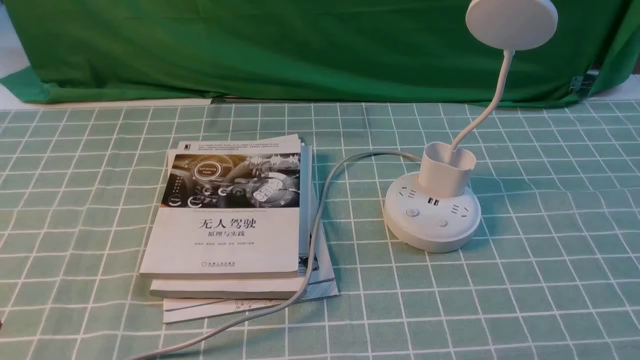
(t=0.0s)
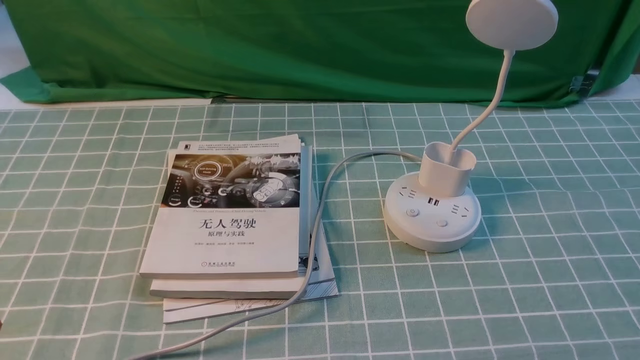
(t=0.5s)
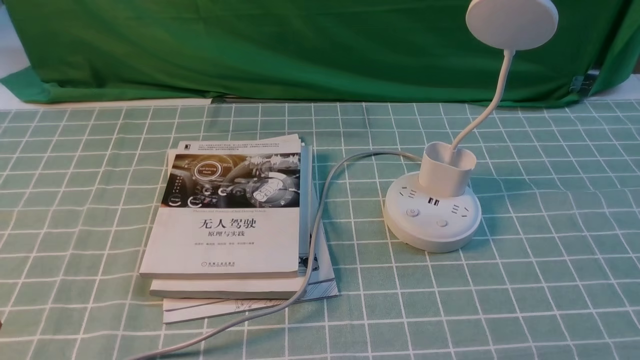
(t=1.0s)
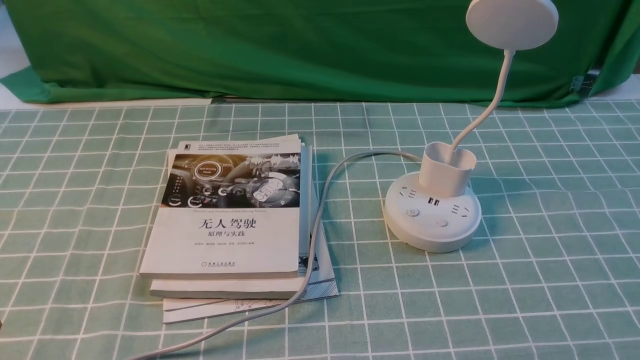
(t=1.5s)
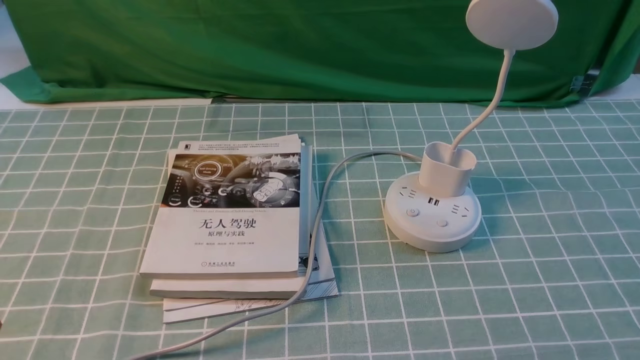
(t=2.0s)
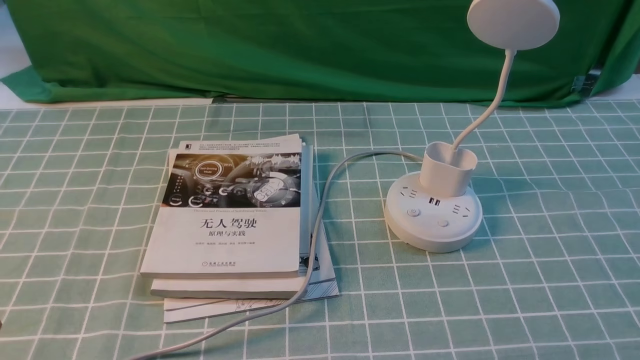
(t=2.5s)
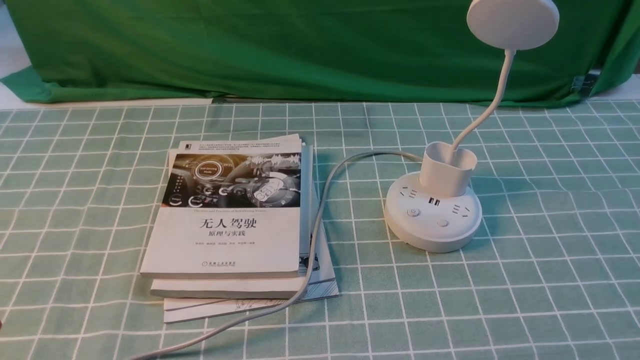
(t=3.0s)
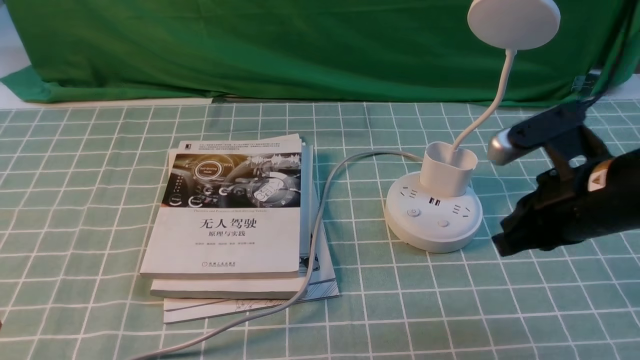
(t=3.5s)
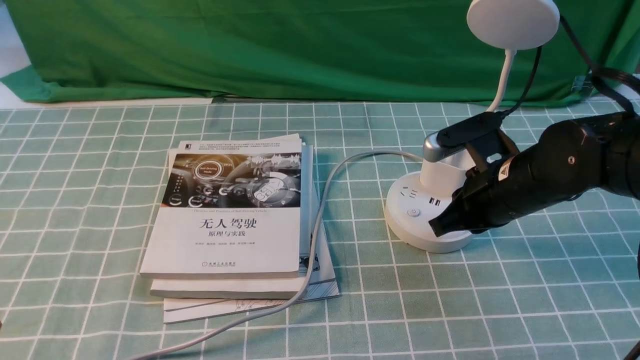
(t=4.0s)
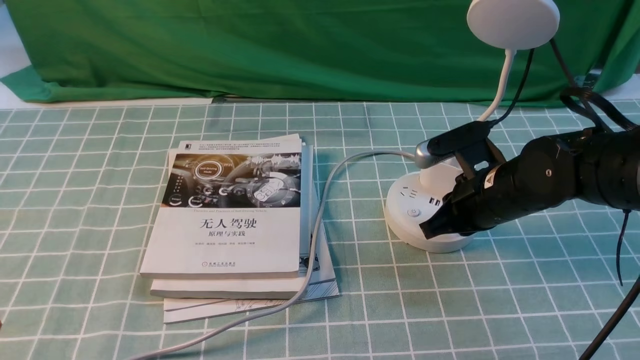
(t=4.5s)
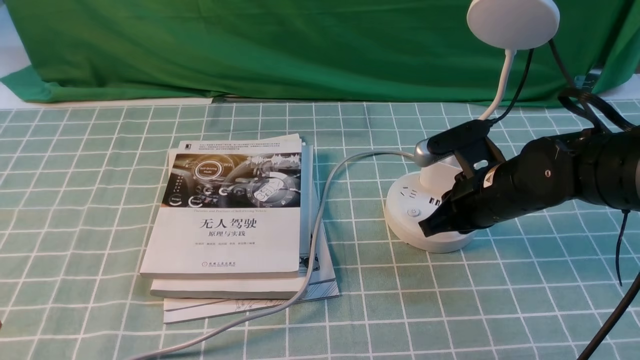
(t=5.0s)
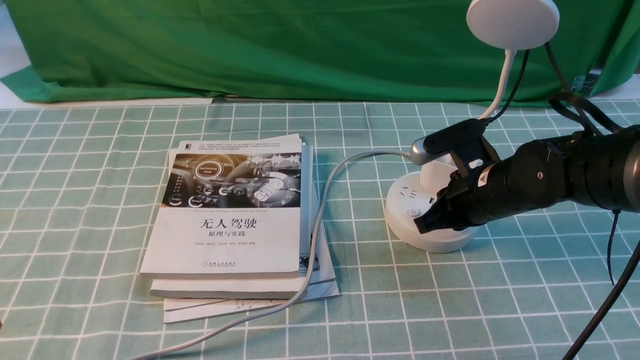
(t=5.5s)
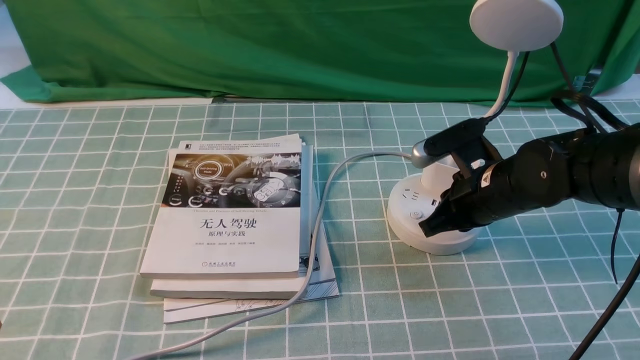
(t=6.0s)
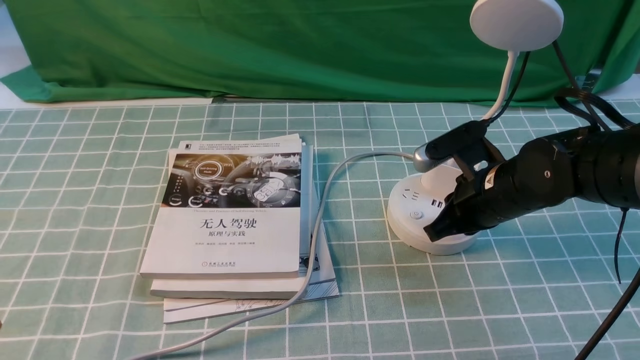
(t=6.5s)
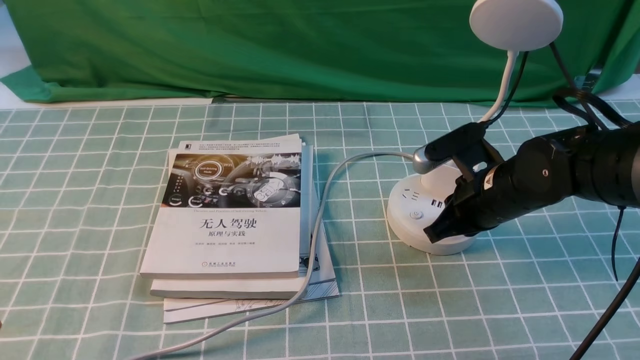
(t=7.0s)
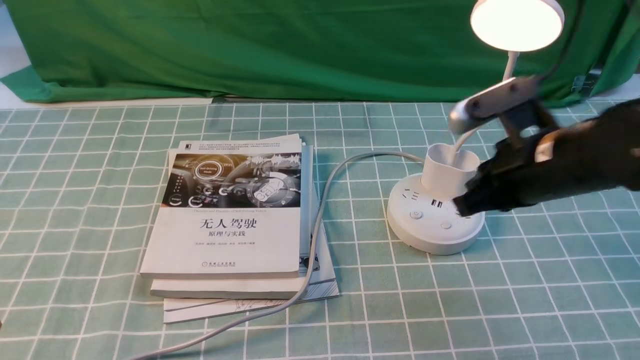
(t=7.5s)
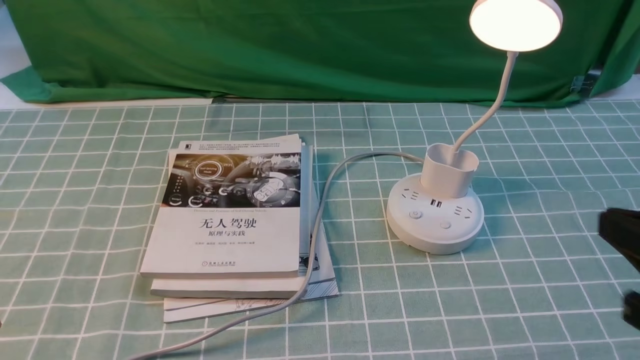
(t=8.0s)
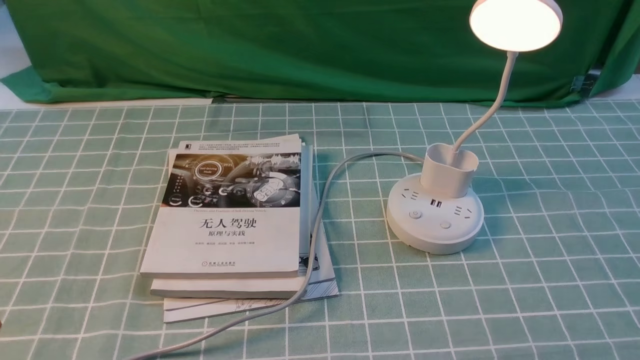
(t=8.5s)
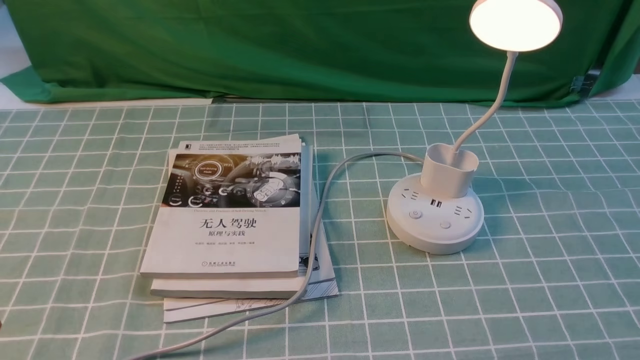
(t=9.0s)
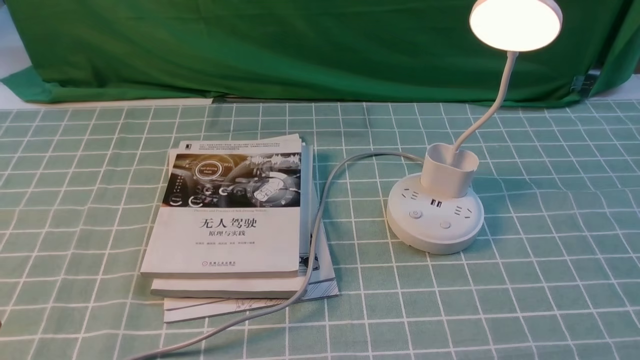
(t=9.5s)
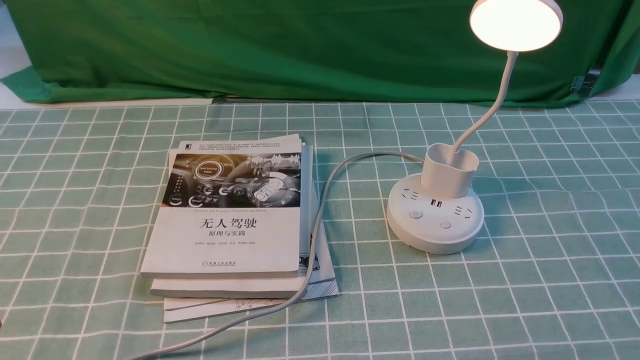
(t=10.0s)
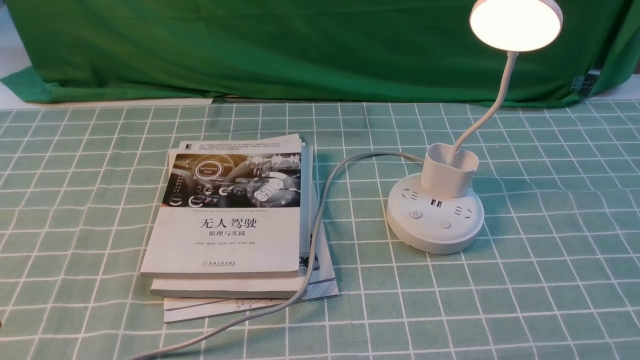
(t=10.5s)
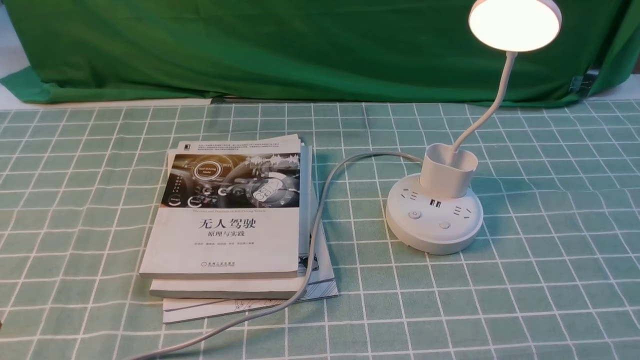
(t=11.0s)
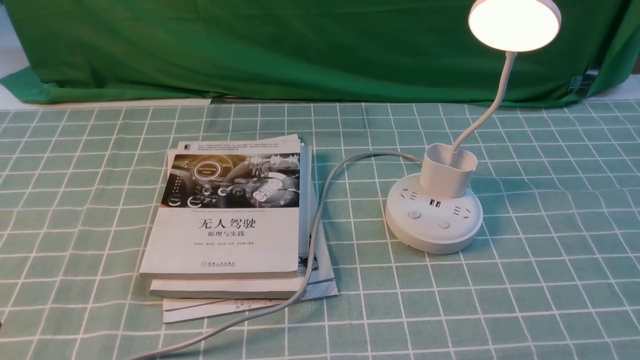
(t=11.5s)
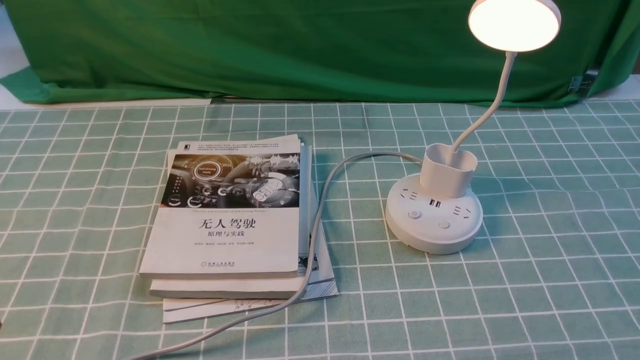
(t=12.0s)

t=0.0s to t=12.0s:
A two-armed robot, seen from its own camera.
Step, t=0.0s to t=7.5s: use the right arm to press the button switch on the lamp holder.
t=2.0s to t=4.0s: The right gripper moves forward and to the left, some 30 cm, and closes.
t=4.0s to t=6.0s: The right gripper changes place by about 5 cm.
t=6.0s to t=8.0s: The right gripper moves backward, upward and to the right, roughly 25 cm.
t=8.0s to t=10.0s: The right gripper is displaced downward, backward and to the right by approximately 15 cm, and opens.
t=10.0s to t=12.0s: Both grippers stay about where they are.

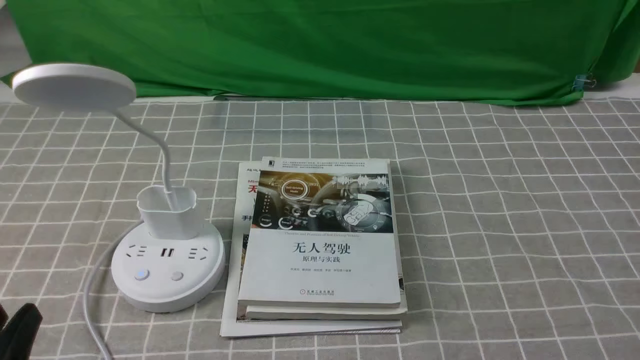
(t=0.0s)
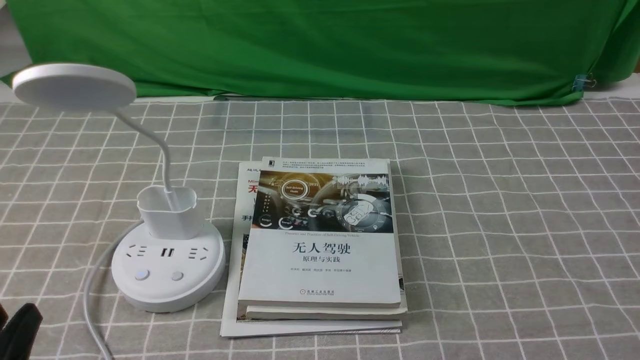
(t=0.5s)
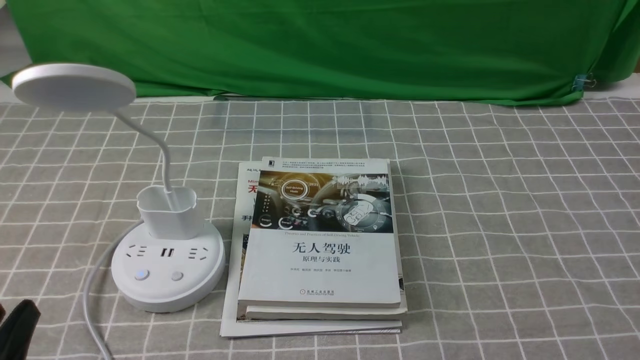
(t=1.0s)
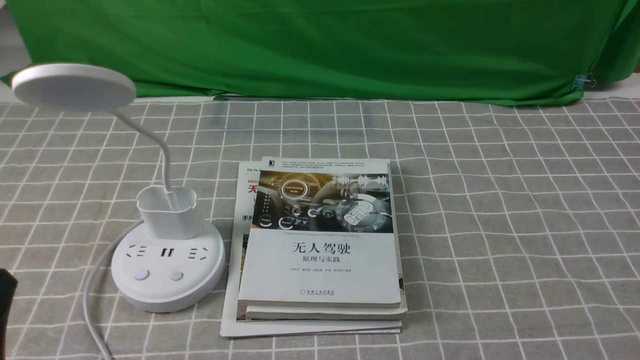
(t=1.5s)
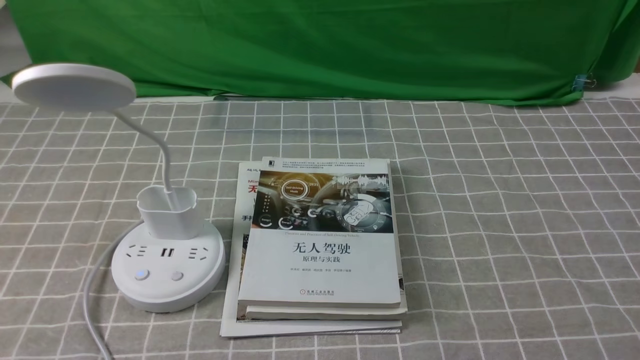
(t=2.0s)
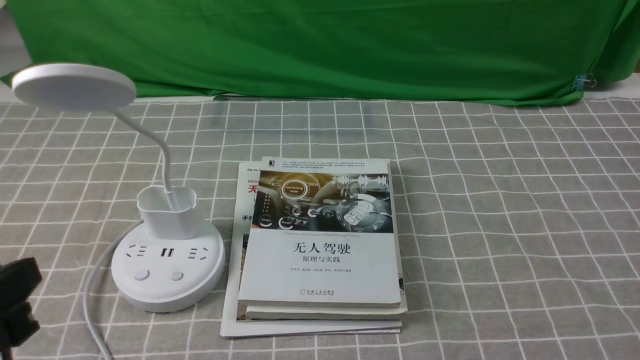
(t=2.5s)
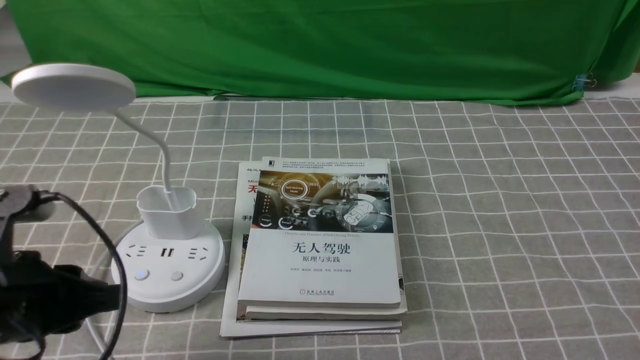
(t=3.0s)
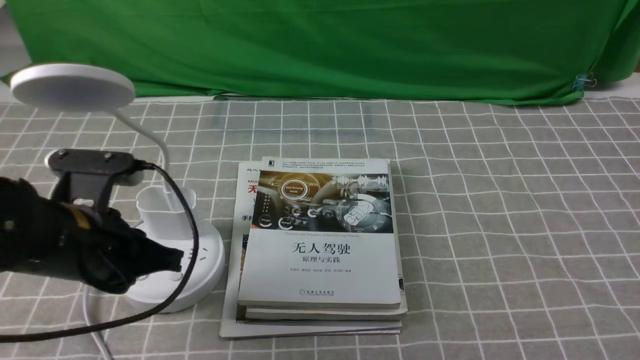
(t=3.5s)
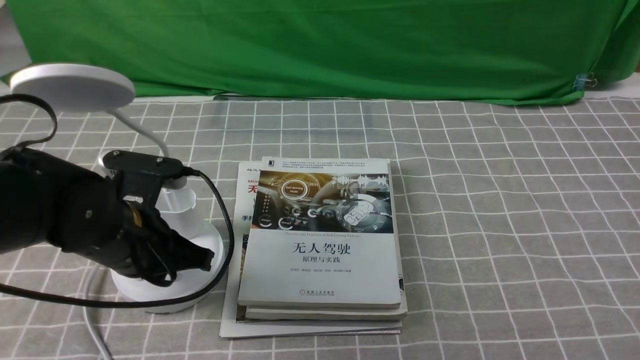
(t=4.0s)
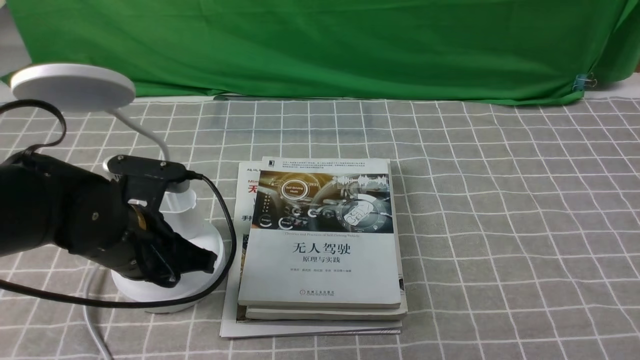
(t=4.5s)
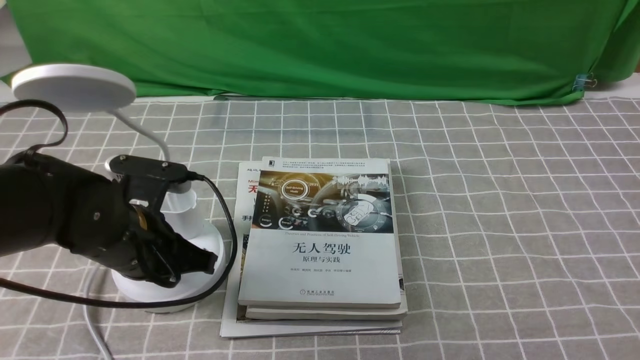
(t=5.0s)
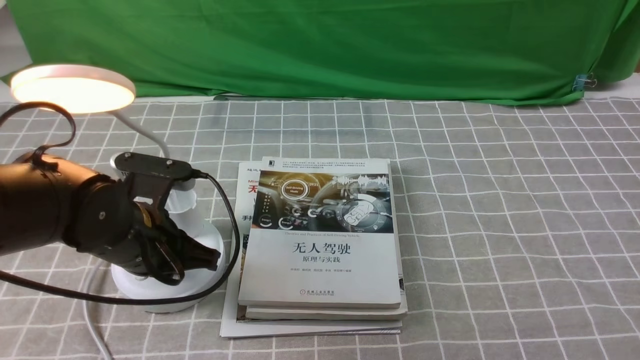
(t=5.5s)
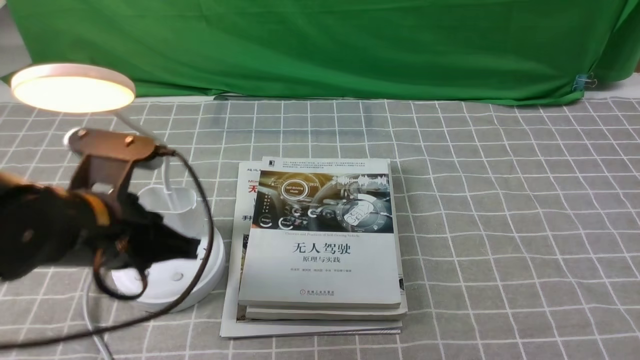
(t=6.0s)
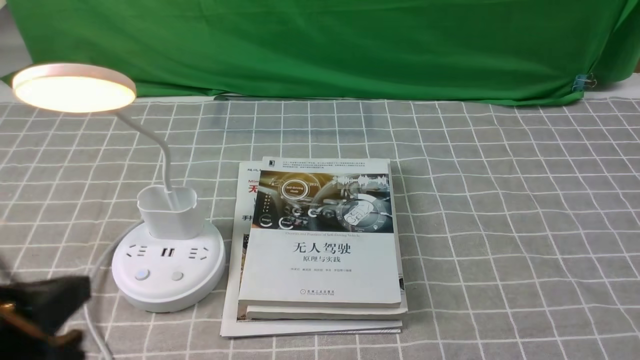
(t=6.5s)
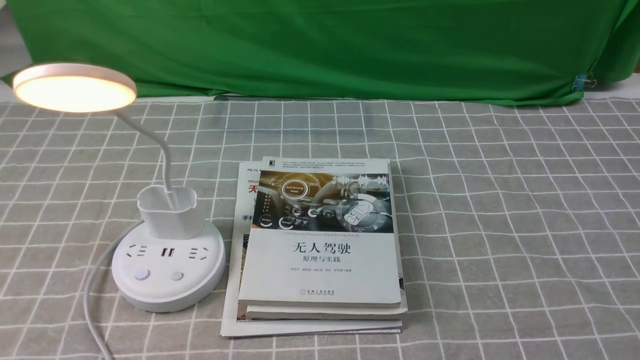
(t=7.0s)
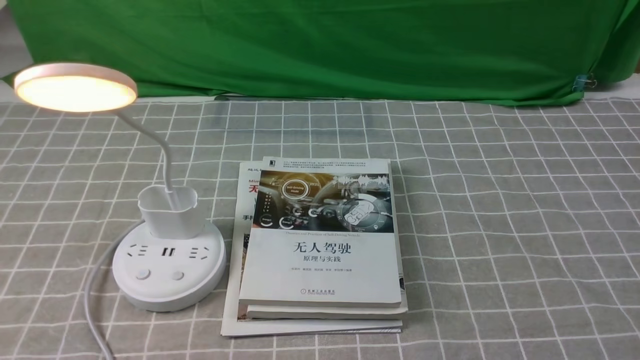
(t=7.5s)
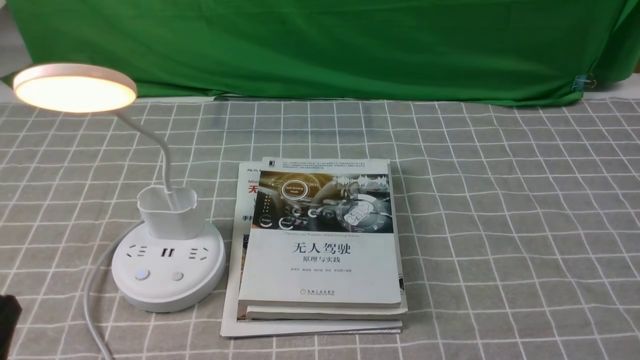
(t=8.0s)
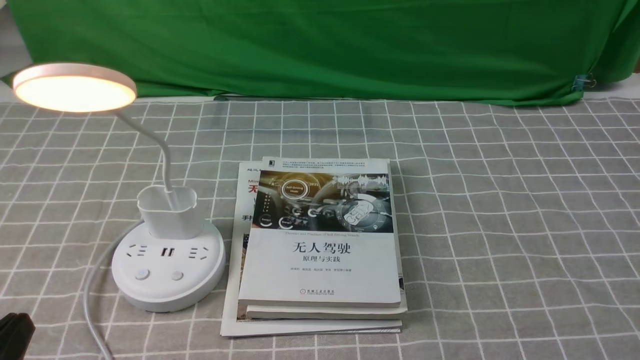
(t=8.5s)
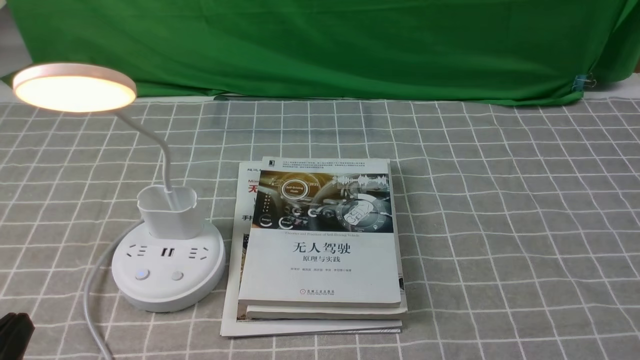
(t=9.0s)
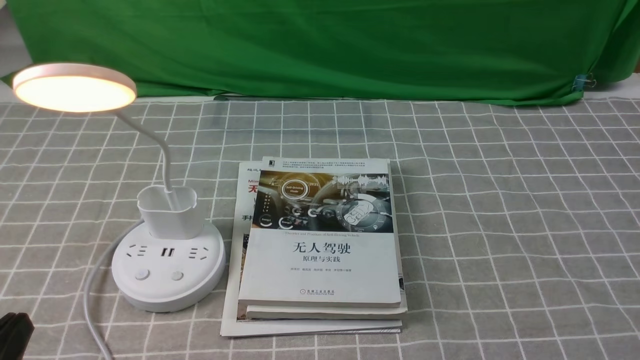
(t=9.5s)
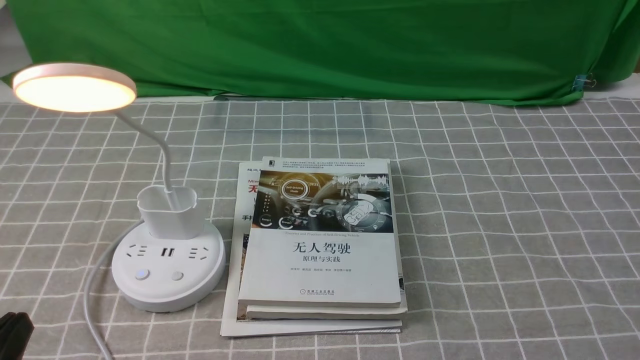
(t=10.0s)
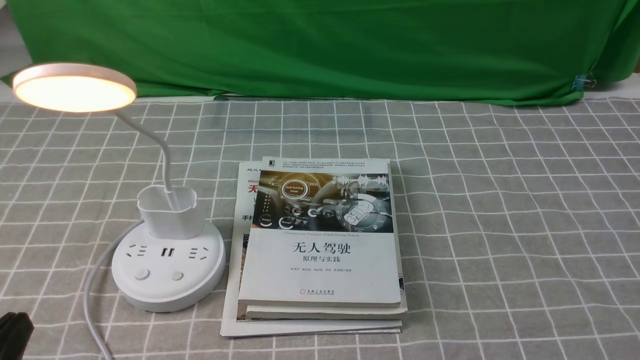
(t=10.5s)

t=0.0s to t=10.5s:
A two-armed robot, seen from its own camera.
Step, t=0.0s to t=5.5s: use the left arm to press the button switch on the lamp holder.
t=2.0s to t=4.0s: The left gripper shifts approximately 20 cm forward, and closes its fingers.
t=4.0s to t=6.5s: The left gripper goes roughly 15 cm backward and upward.
t=6.5s to t=8.5s: The left gripper goes about 10 cm backward and downward.
t=8.5s to t=10.5s: The two grippers keep their place.
